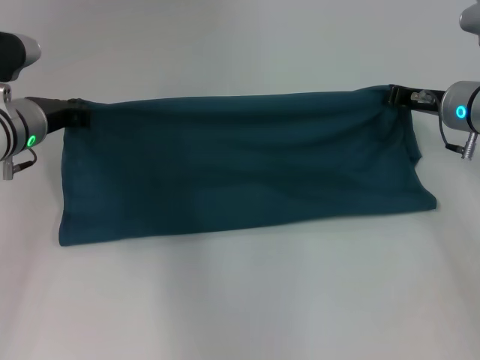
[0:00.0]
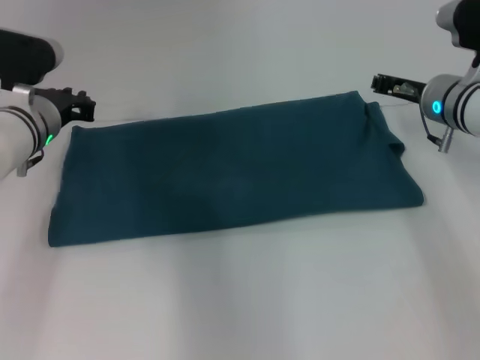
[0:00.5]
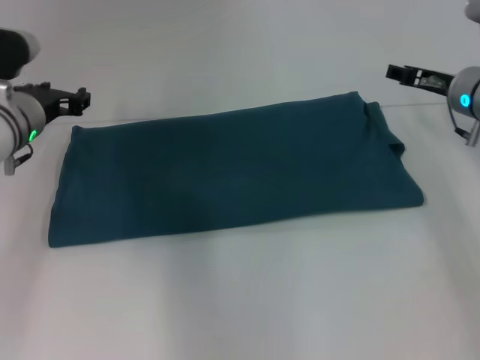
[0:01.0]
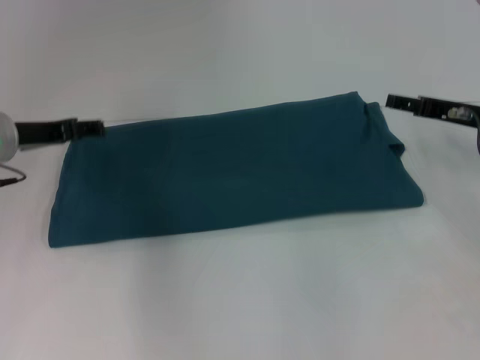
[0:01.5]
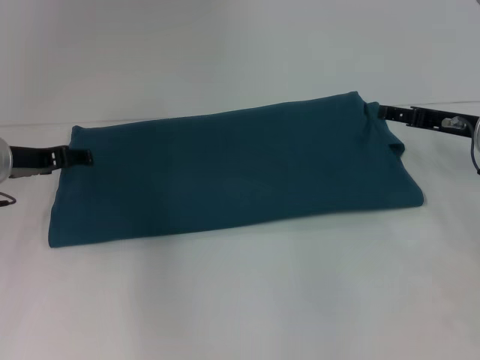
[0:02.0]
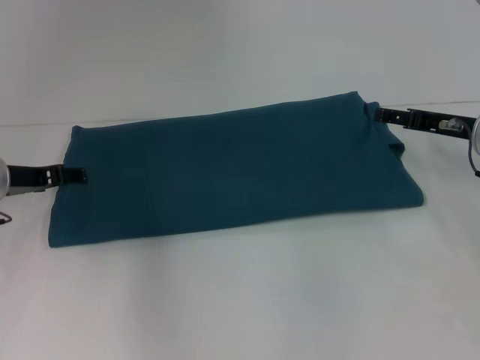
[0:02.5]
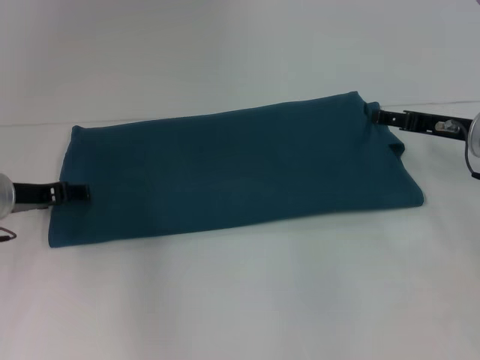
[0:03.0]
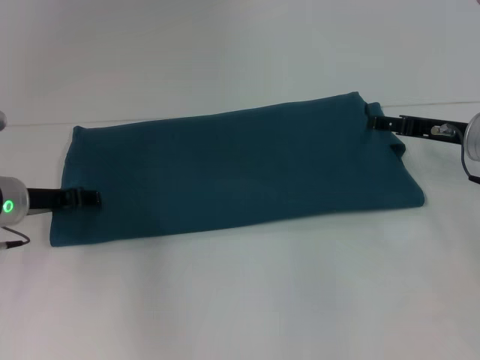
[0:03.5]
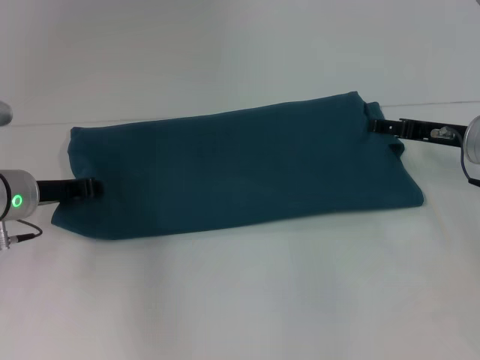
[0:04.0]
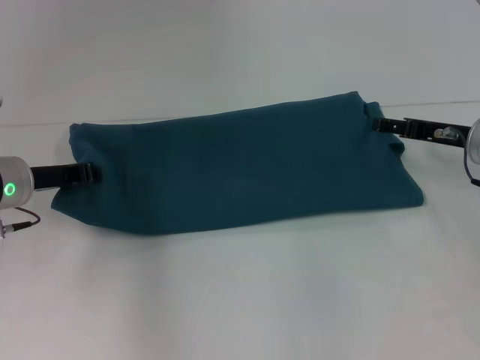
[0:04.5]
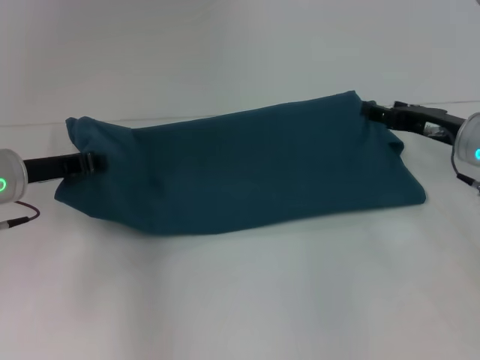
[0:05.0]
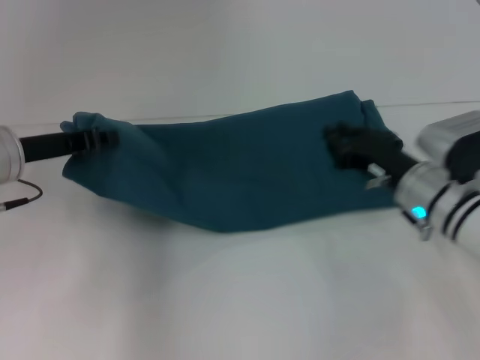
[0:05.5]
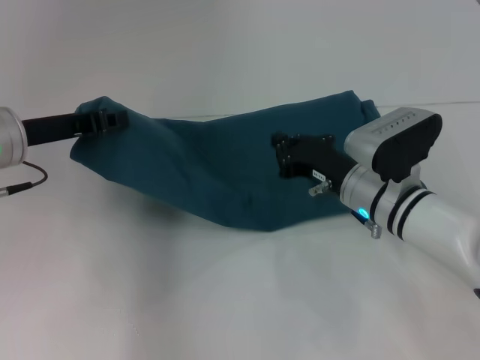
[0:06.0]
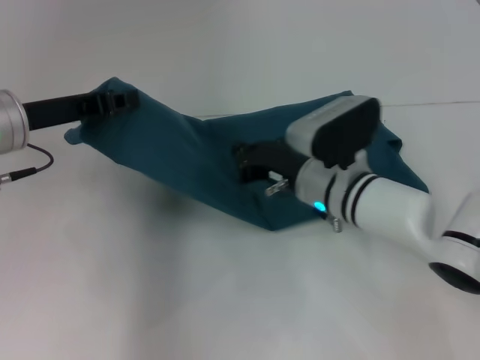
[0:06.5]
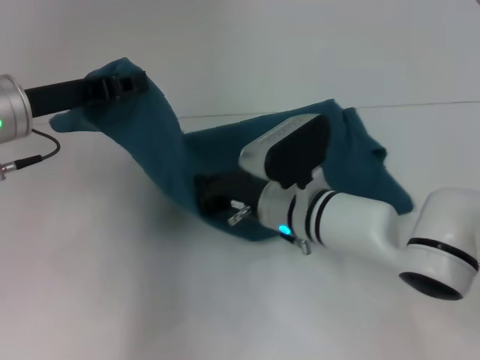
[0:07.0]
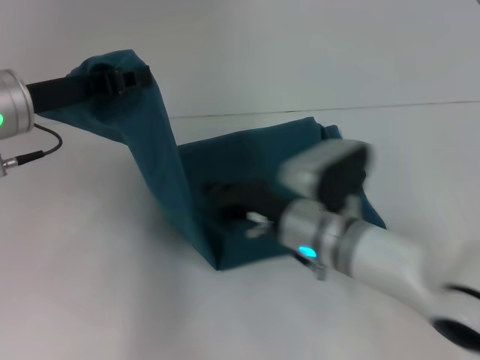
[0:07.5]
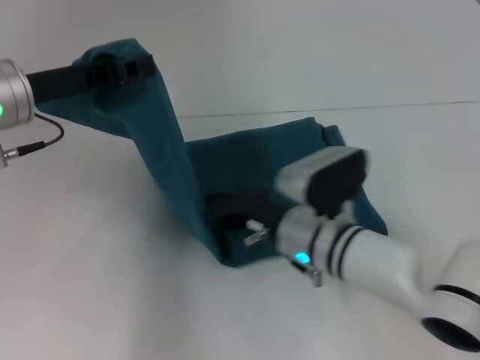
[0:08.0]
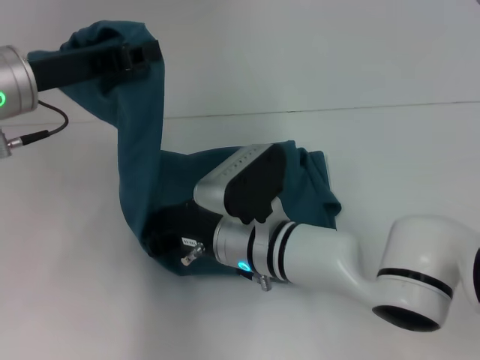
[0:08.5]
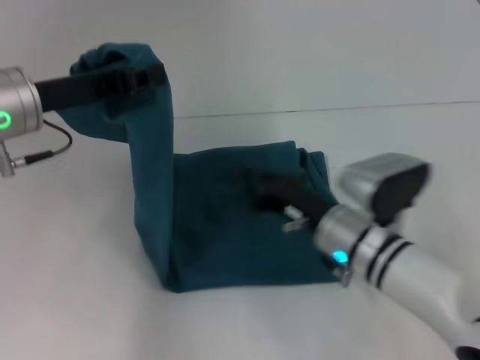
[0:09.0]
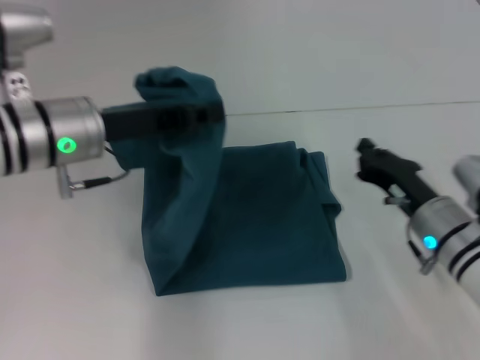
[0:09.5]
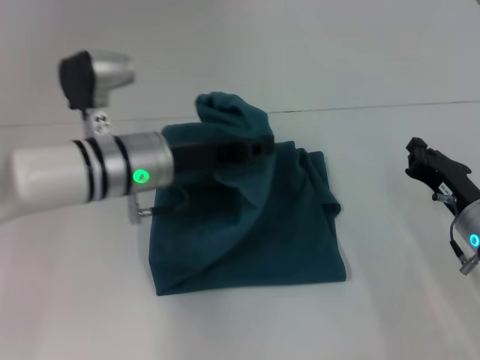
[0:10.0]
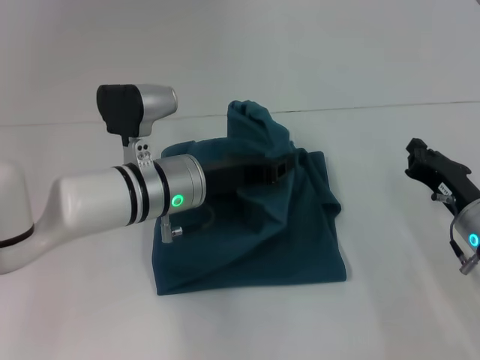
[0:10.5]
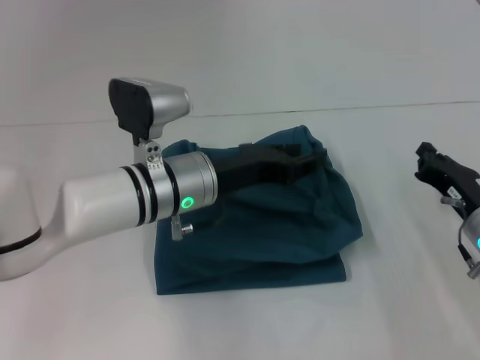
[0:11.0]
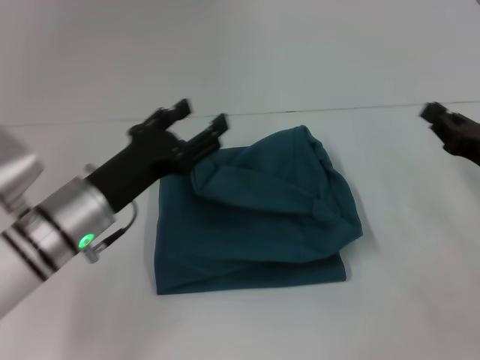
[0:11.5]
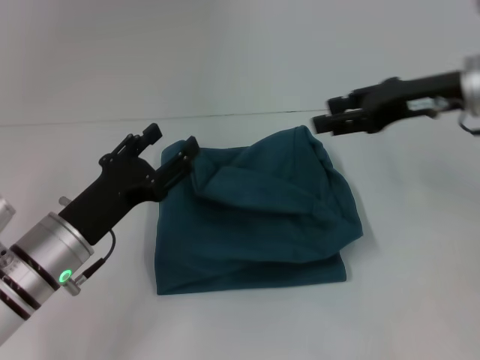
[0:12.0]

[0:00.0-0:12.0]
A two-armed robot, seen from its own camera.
Step, 0:01.0 to 0:08.5: Press the middle of the clothes with your right hand.
Step, 0:09.0 to 0:11.0: Fold the clothes to the left.
0:00.0 to 0:02.0: The right gripper changes place by roughly 5 cm, and opens up. The left gripper opens its fingers.
0:02.0 to 0:04.0: The left gripper closes.
0:04.0 to 0:06.0: The right gripper heads to the left and downward, covering approximately 15 cm, and closes its fingers. Meanwhile the left gripper is displaced upward by approximately 10 cm, and closes up.
0:06.0 to 0:08.0: The right gripper heads to the left, covering roughly 5 cm.
0:08.0 to 0:10.0: The right gripper shifts roughly 20 cm to the right. Meanwhile the left gripper goes some 15 cm to the right and downward.
0:10.0 to 0:12.0: The left gripper goes approximately 15 cm backward, to the left and downward, and opens up. Meanwhile the right gripper is displaced upward and forward by roughly 20 cm, and opens up.

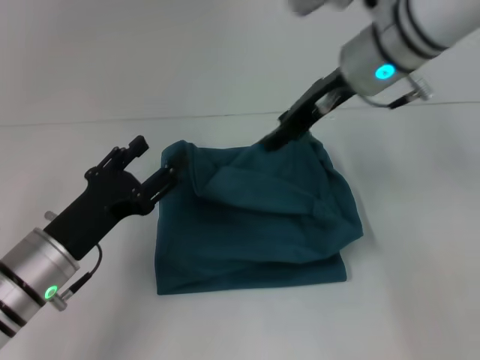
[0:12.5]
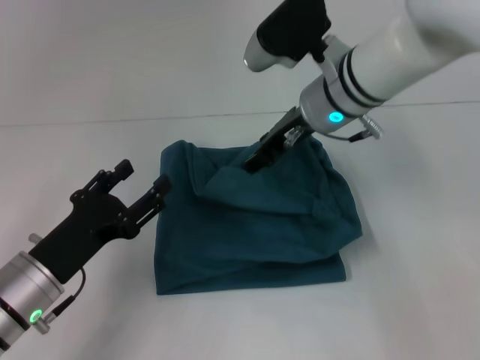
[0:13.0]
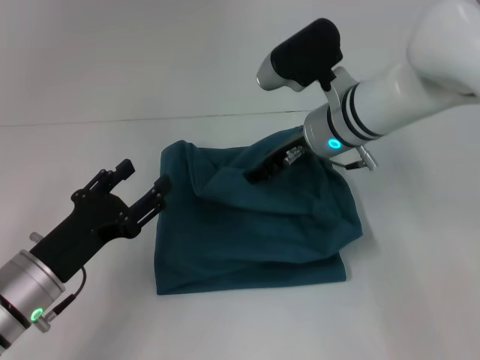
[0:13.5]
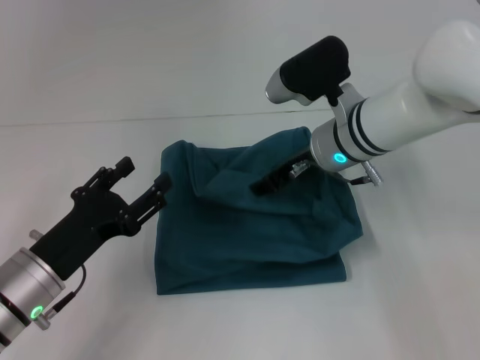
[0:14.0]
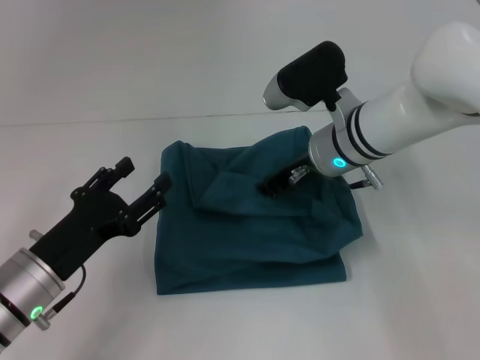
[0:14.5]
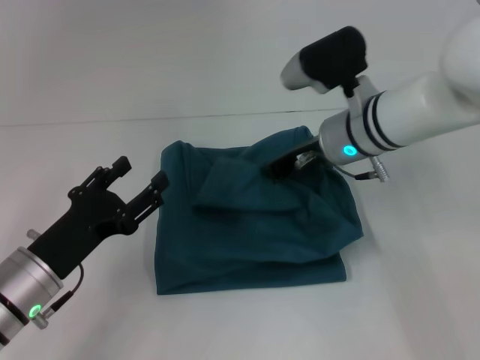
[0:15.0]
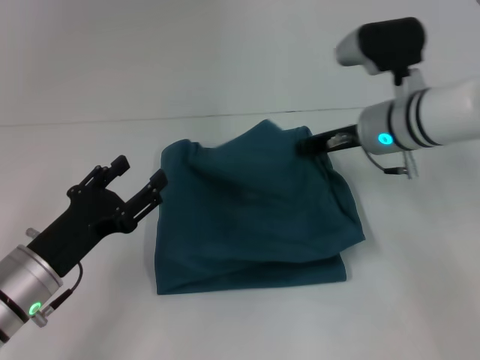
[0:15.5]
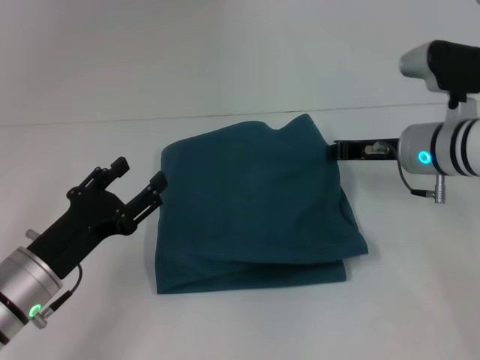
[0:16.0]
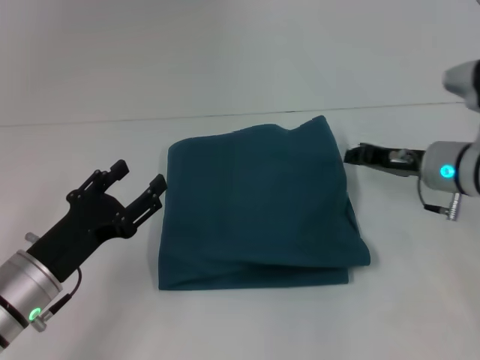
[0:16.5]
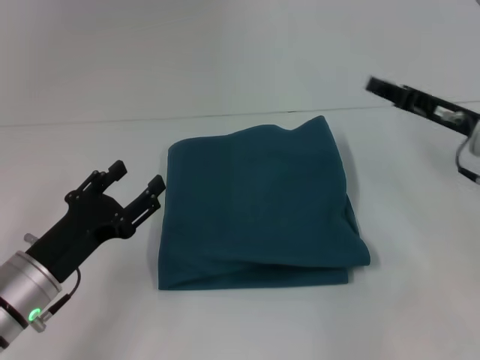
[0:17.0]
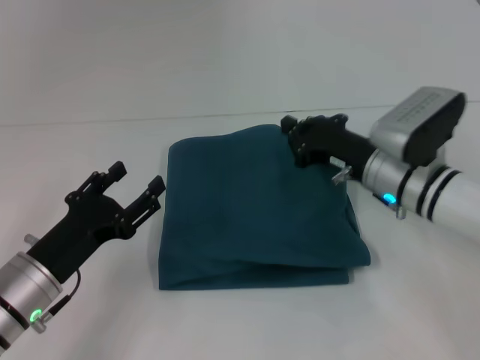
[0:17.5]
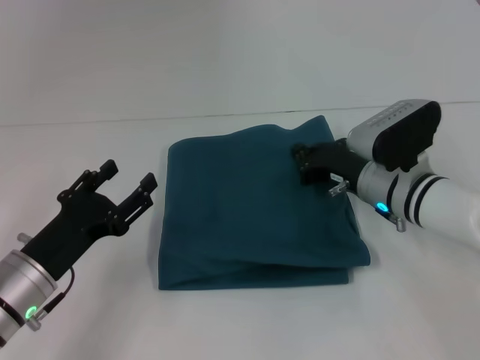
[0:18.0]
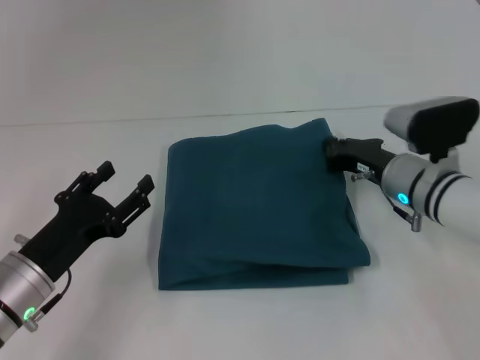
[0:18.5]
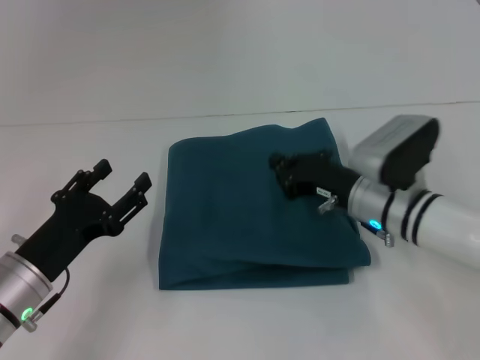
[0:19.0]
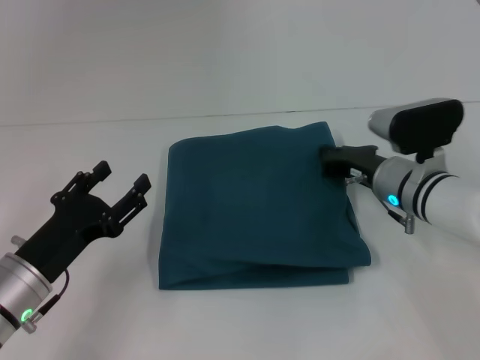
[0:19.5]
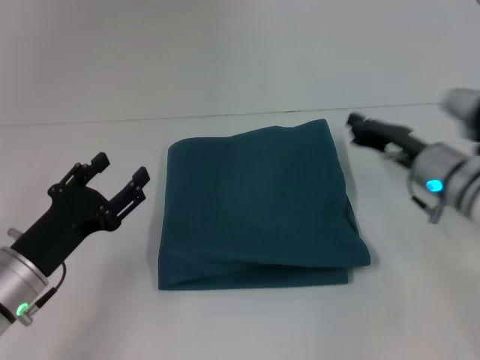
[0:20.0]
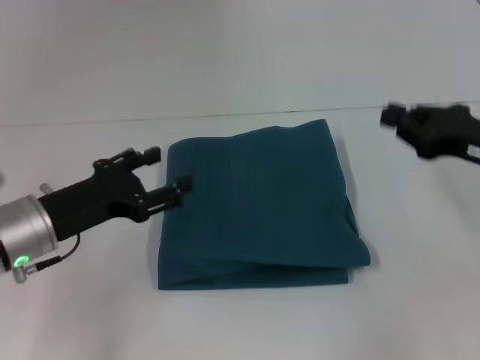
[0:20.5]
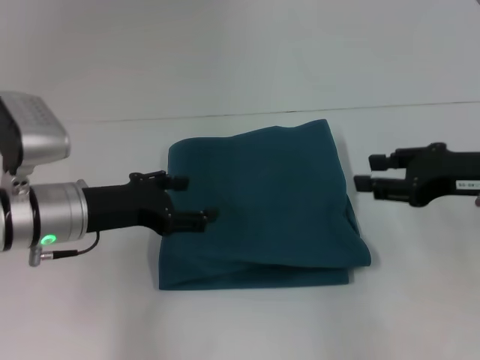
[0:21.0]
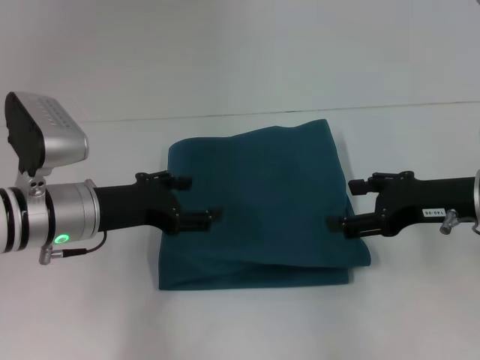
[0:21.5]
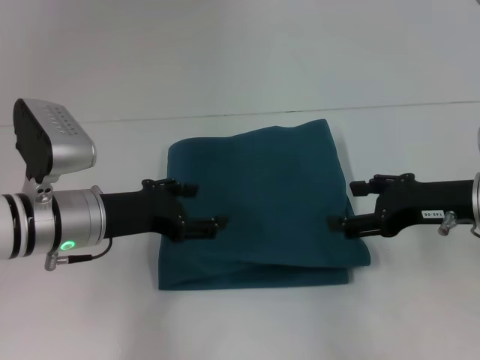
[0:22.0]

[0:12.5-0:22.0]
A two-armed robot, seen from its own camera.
0:12.5 to 0:14.5: The right gripper travels downward by approximately 10 cm.
0:14.5 to 0:16.5: The right gripper heads to the right, covering some 15 cm, and closes.
0:16.5 to 0:18.0: The right gripper travels to the left by approximately 5 cm.
0:18.0 to 0:20.0: The right gripper moves to the right, about 5 cm.
0:20.0 to 0:22.0: The right gripper moves upward and backward, approximately 10 cm, and opens up, while the left gripper heads forward and upward, covering approximately 10 cm.

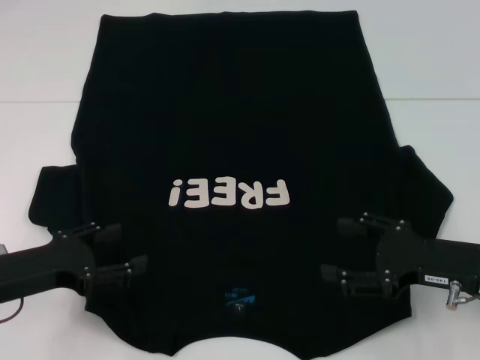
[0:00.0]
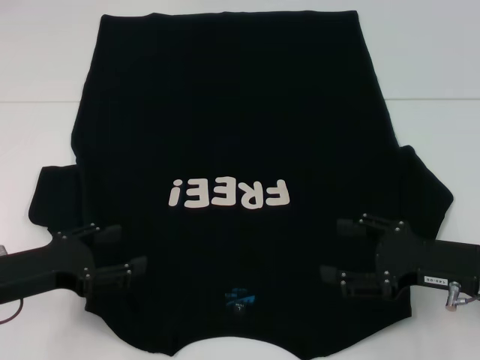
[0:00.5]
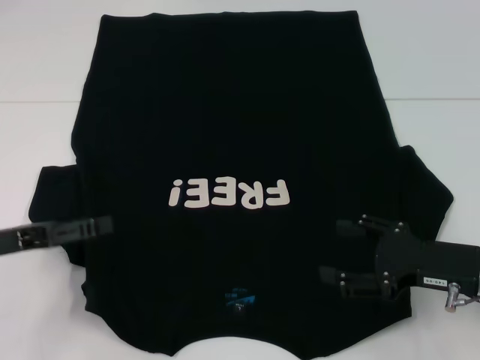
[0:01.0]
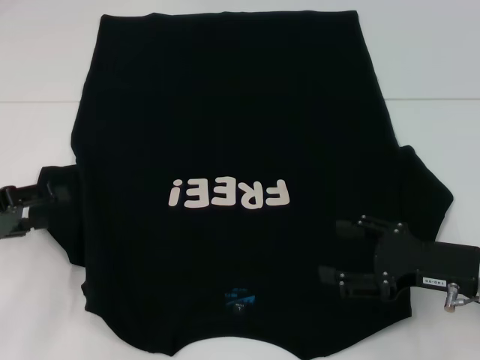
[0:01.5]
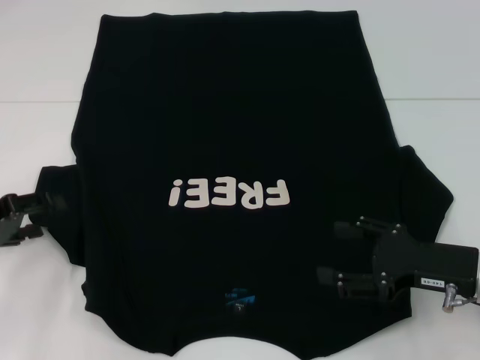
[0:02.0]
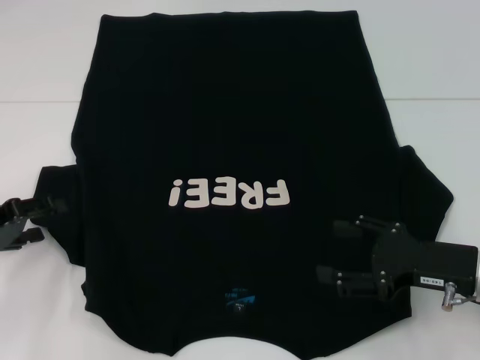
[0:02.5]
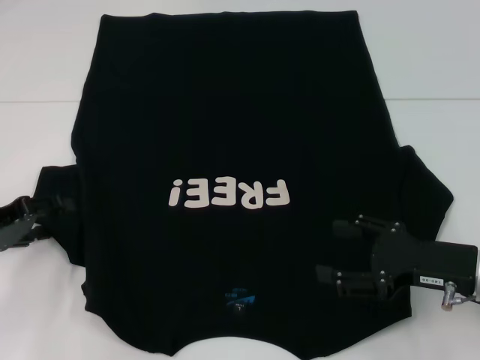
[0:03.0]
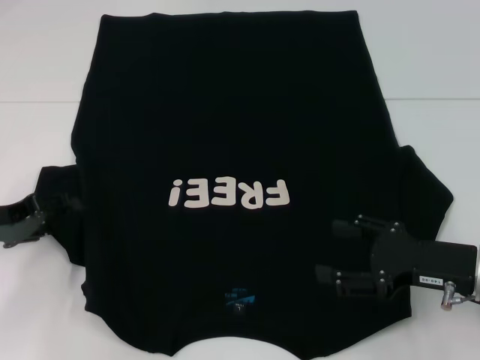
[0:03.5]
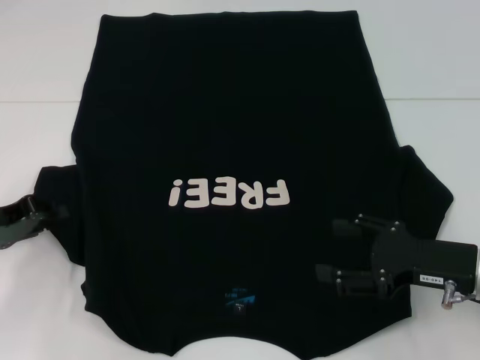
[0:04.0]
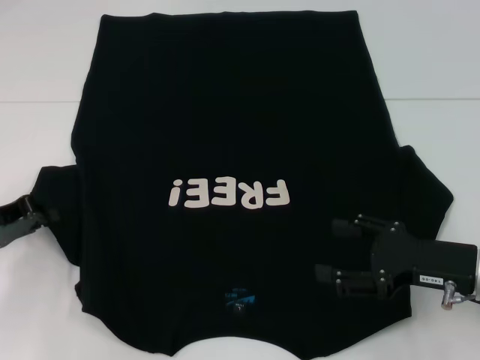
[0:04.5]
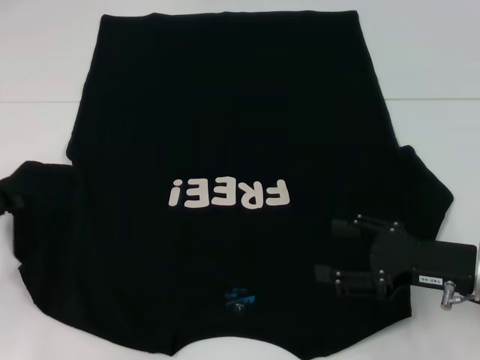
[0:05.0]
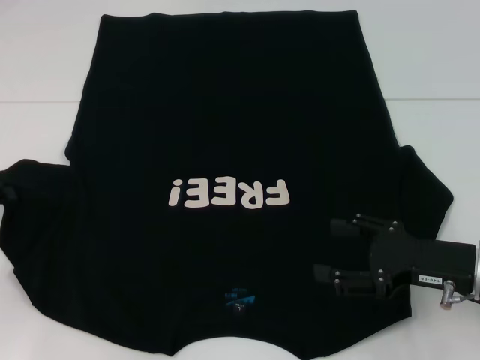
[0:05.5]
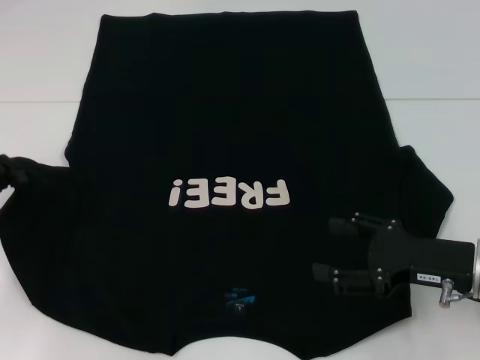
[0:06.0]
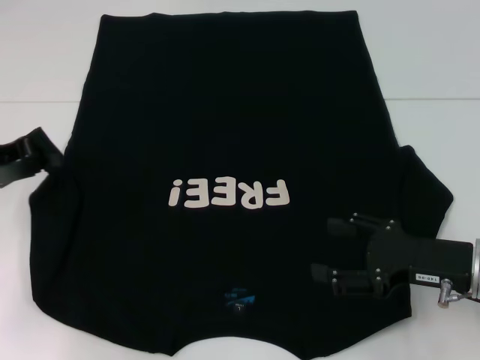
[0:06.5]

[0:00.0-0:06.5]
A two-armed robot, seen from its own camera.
0:00.0 to 0:02.0: The left gripper goes approximately 5 cm to the left.
0:02.0 to 0:04.5: The left gripper closes its fingers.
0:04.5 to 0:06.5: The left gripper heads upward, covering approximately 5 cm.
